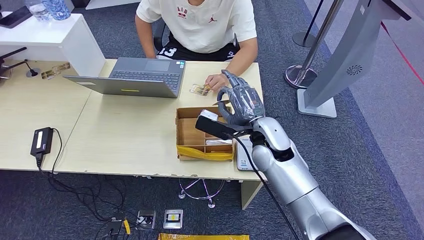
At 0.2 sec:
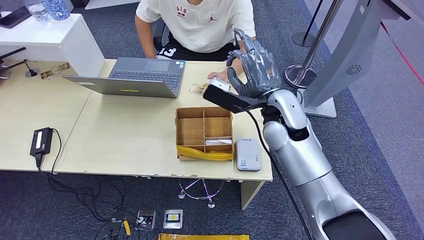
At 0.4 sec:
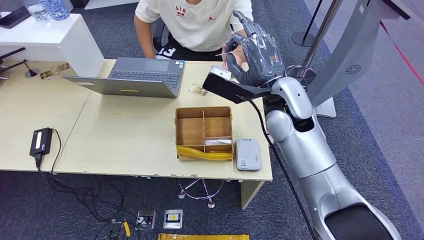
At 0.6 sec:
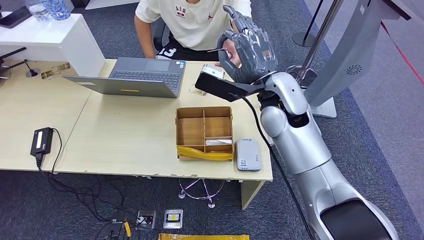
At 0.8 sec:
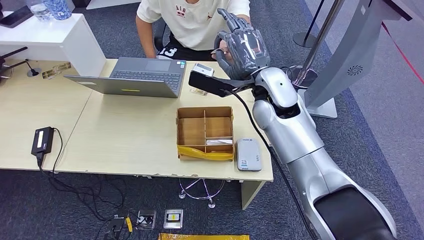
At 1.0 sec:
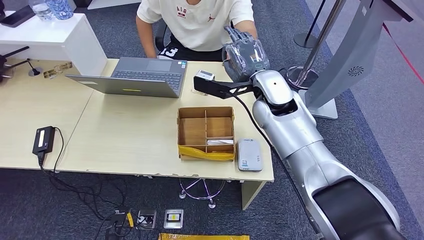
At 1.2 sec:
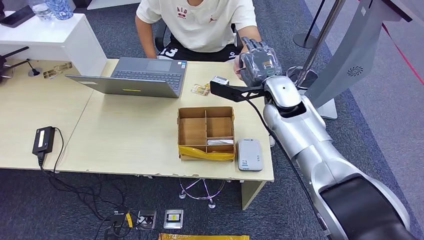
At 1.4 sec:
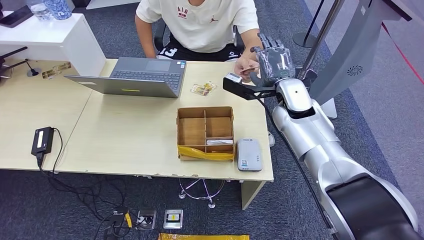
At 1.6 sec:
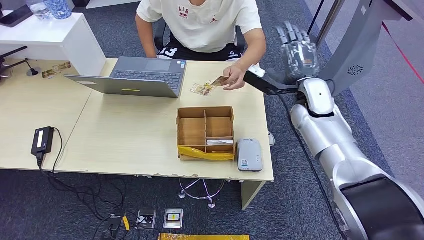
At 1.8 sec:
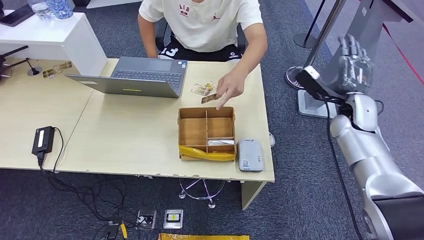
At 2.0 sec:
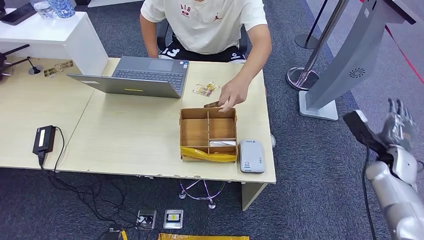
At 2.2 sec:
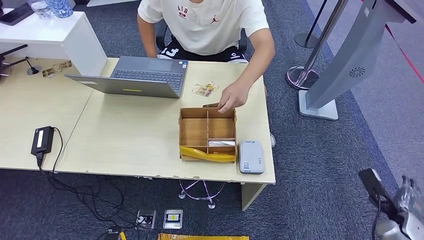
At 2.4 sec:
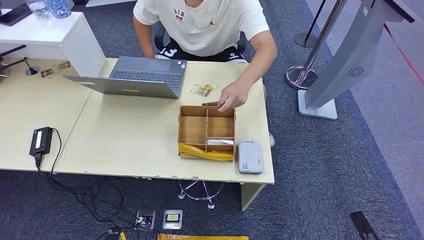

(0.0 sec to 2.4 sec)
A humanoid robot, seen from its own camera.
Step, 0.8 sec - 2.4 sec: Hand the room key to the person.
